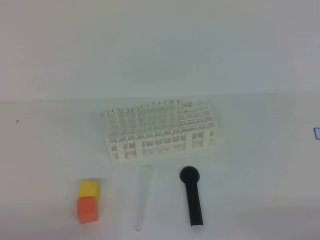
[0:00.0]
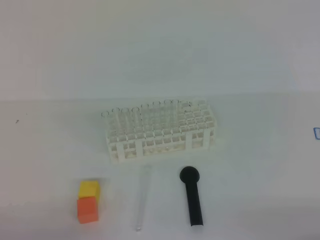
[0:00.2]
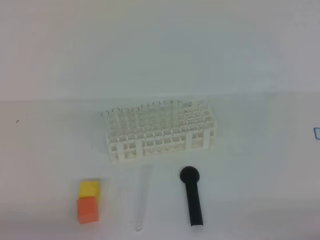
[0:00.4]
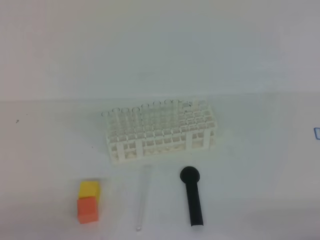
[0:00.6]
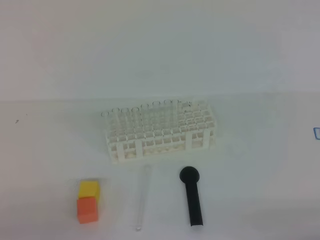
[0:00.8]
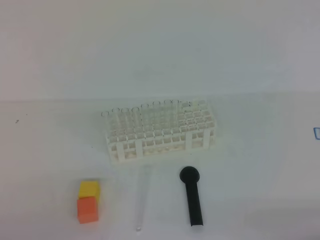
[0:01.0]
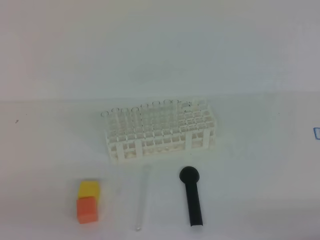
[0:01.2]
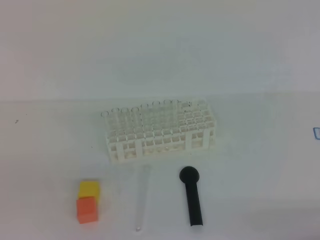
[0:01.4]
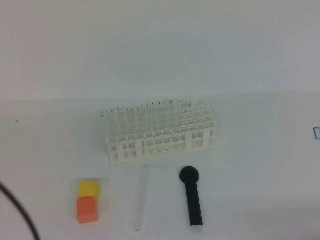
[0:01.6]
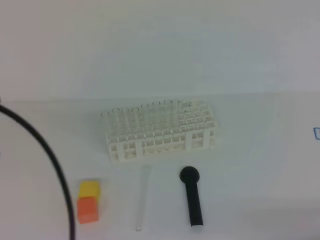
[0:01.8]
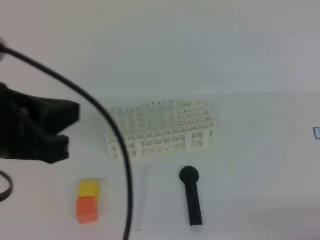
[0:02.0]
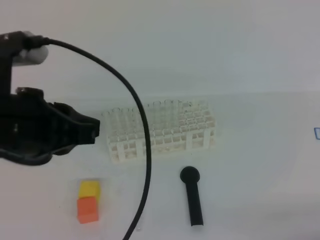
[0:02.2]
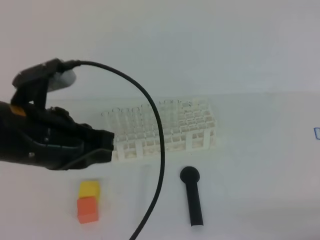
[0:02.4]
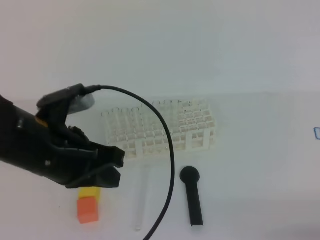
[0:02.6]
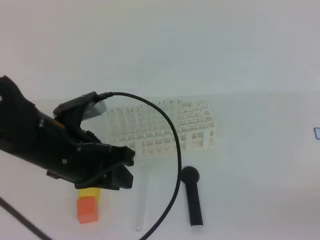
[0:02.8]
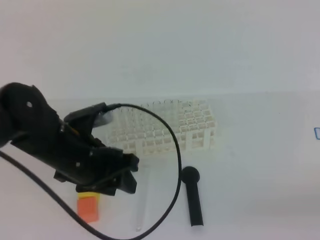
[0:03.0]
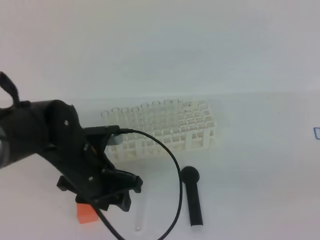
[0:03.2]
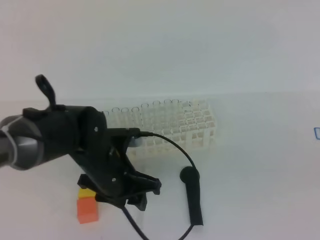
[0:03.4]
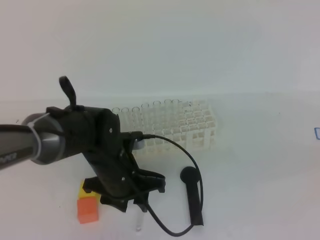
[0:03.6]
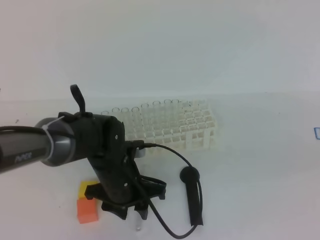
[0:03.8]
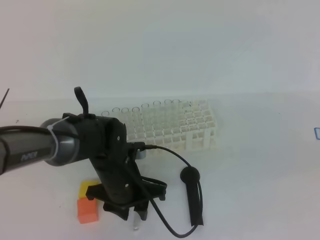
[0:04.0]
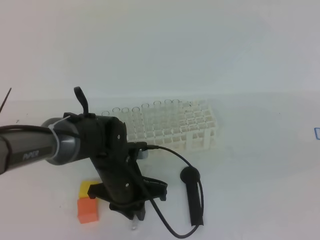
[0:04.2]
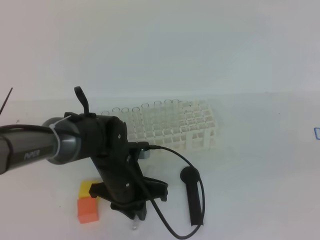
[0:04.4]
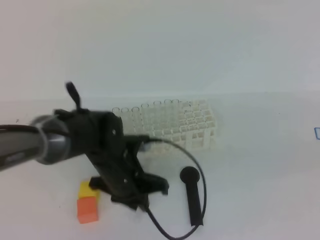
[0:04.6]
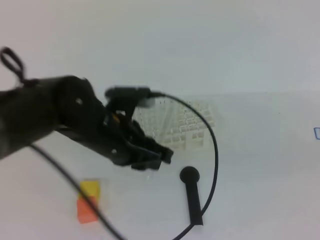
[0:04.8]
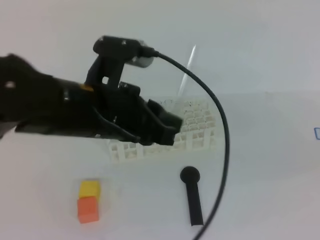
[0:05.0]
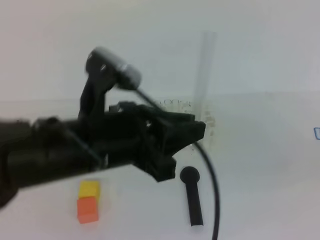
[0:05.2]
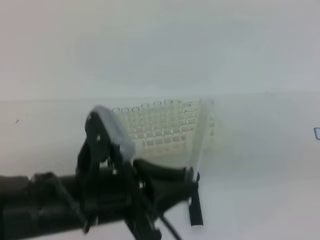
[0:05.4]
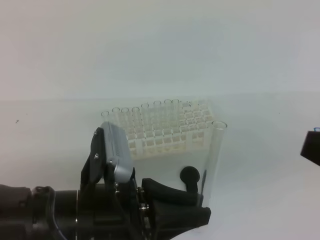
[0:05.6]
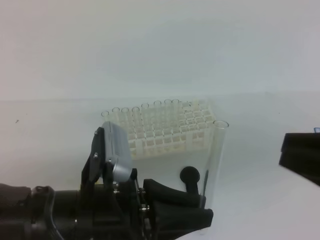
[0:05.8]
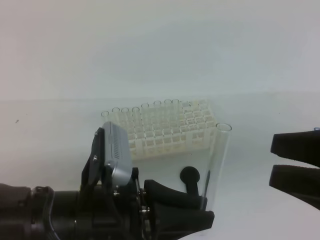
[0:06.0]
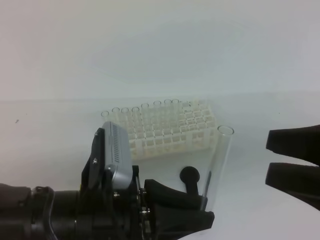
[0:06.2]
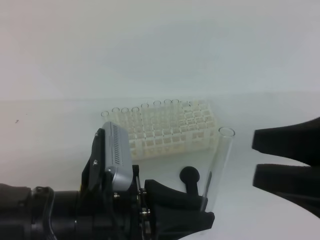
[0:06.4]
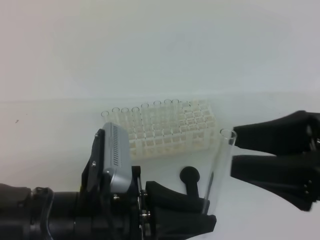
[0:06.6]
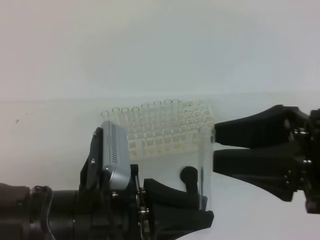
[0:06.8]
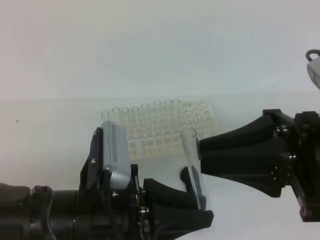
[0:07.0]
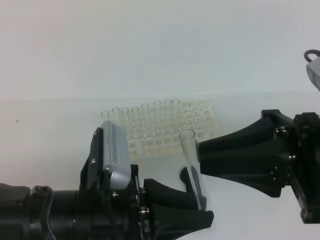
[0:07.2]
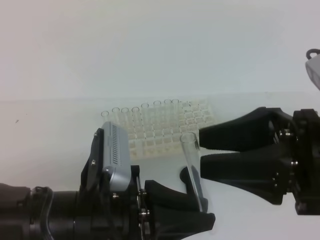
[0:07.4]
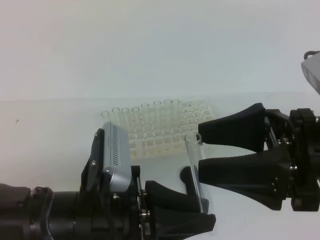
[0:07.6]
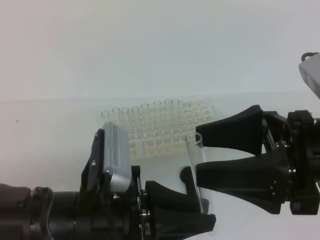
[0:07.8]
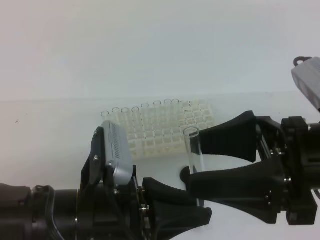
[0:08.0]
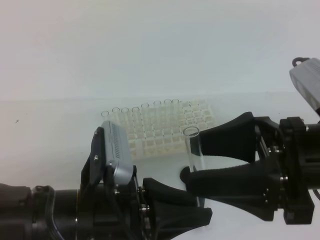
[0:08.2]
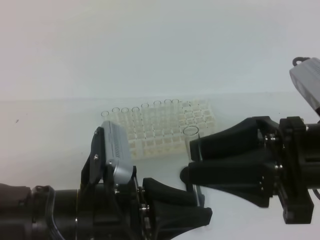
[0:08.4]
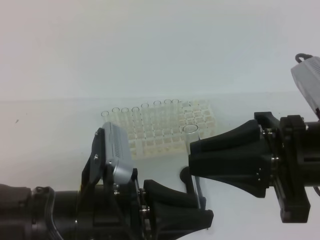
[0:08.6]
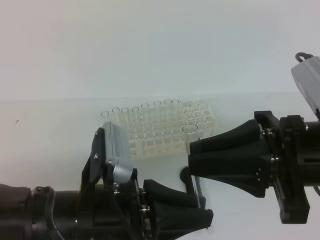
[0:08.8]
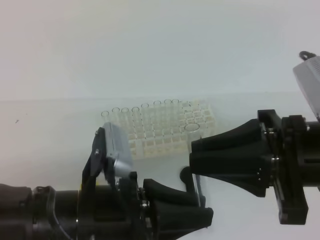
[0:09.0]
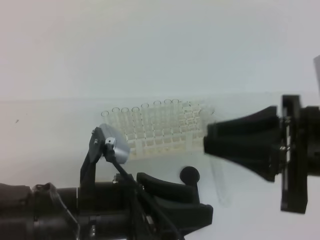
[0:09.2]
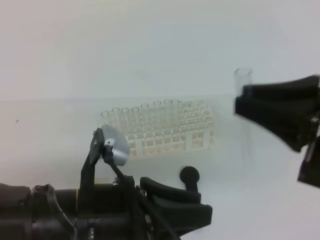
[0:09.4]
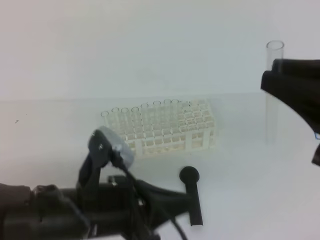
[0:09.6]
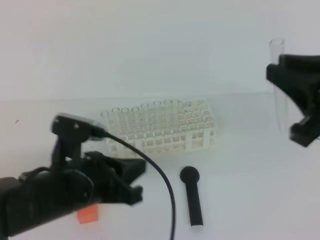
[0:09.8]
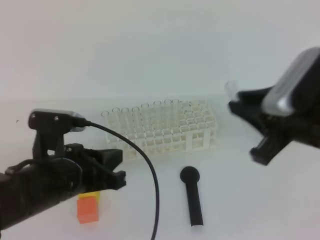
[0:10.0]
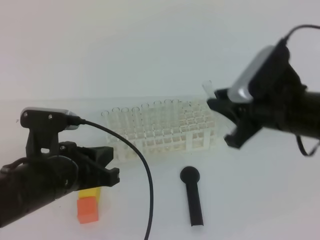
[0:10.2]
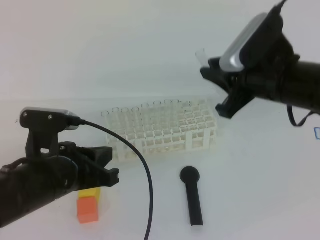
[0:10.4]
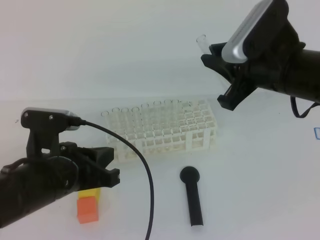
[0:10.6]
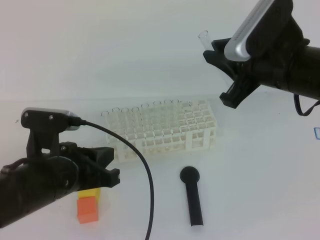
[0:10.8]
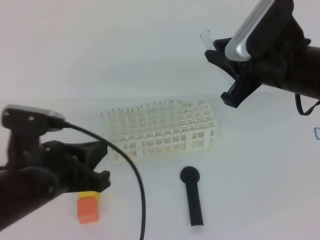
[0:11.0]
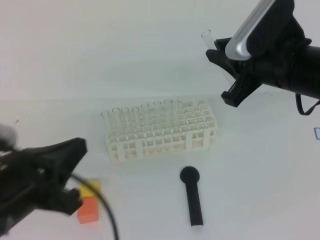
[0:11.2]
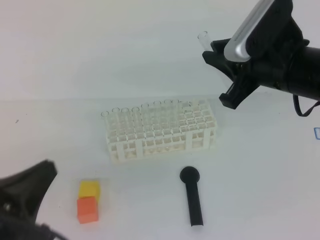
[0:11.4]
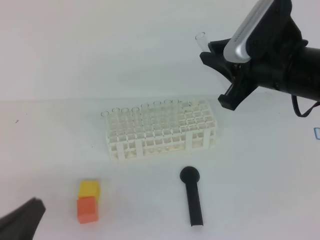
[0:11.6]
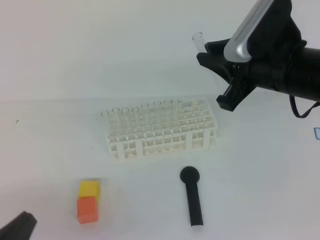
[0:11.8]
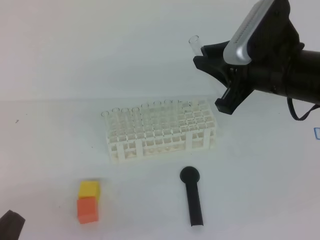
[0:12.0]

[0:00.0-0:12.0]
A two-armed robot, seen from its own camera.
0:00.0 to 0:01.6: The left gripper is displaced upward by some 20 cm.
0:01.6 to 0:03.0: The right gripper shifts roughly 5 cm upward. The left gripper is displaced forward, to the right and downward by roughly 25 cm, and opens its fingers.
0:03.0 to 0:04.4: The right gripper travels upward by some 15 cm; the left gripper heads downward and to the right, covering about 10 cm, and closes up.
0:04.4 to 0:06.0: The right gripper goes some 5 cm to the left, and opens up. The left gripper moves backward and upward, some 20 cm.
0:06.0 to 0:07.6: The right gripper travels to the left by approximately 5 cm, and opens its fingers.
0:07.6 to 0:09.0: The left gripper opens its fingers. The right gripper closes its fingers.
0:09.0 to 0:10.4: The right gripper moves forward, about 10 cm. The left gripper goes roughly 10 cm forward and to the left, and closes up.
0:10.4 to 0:12.0: The left gripper is displaced backward and to the left by about 15 cm.

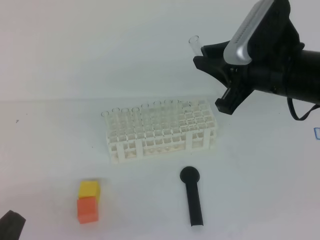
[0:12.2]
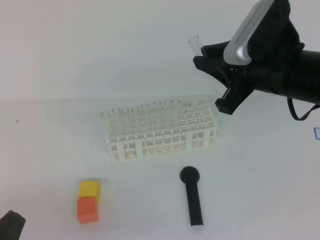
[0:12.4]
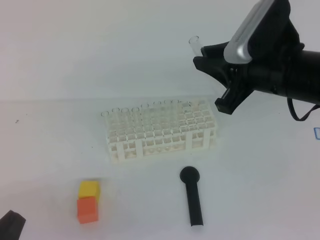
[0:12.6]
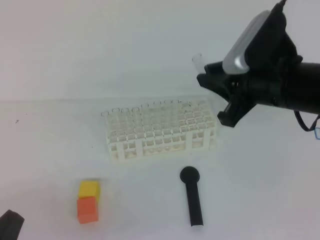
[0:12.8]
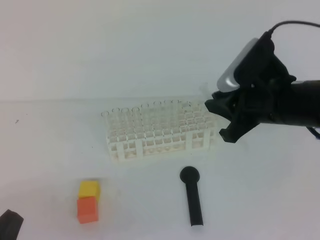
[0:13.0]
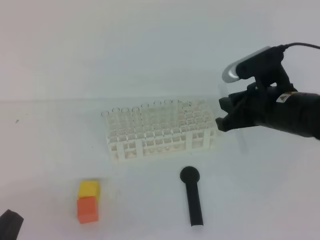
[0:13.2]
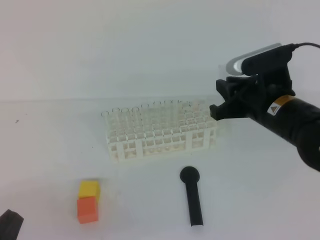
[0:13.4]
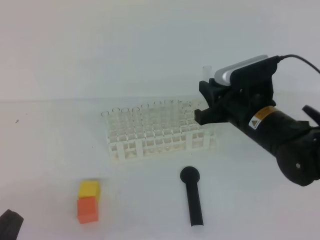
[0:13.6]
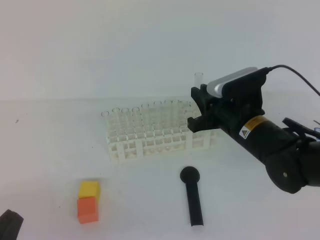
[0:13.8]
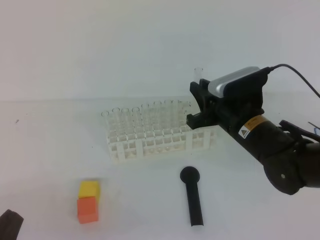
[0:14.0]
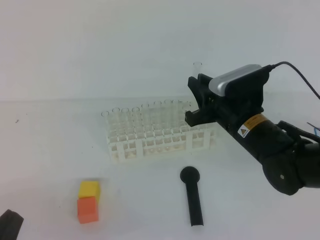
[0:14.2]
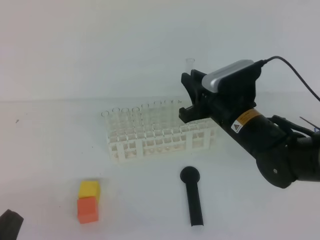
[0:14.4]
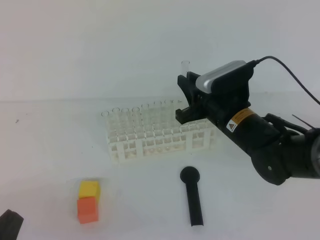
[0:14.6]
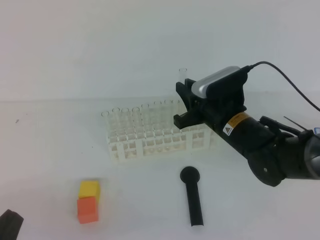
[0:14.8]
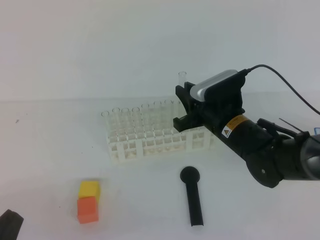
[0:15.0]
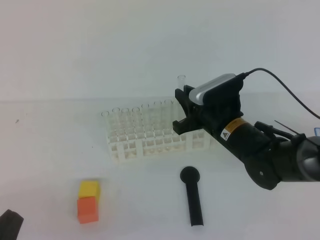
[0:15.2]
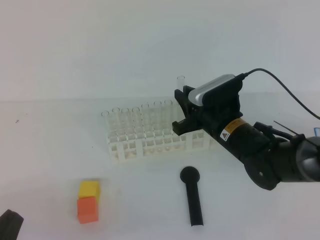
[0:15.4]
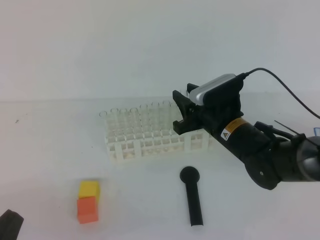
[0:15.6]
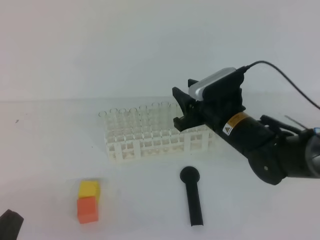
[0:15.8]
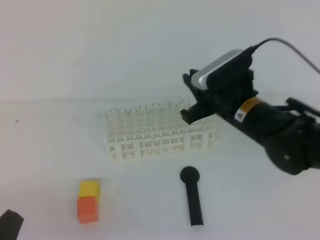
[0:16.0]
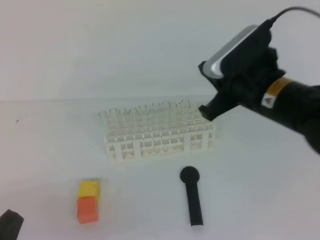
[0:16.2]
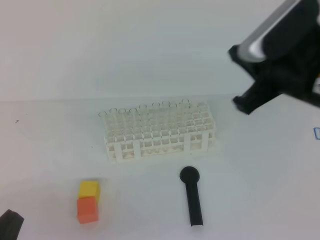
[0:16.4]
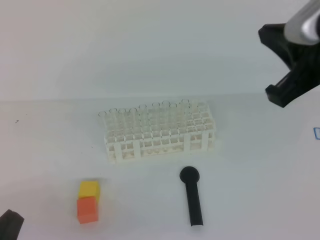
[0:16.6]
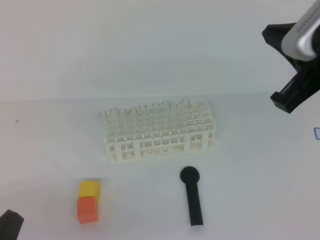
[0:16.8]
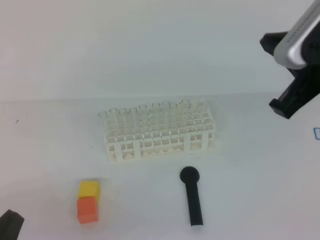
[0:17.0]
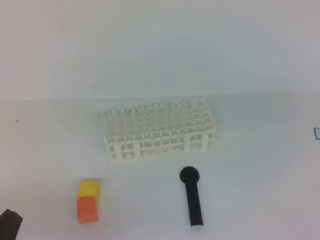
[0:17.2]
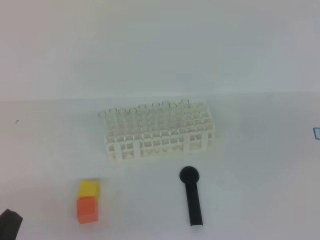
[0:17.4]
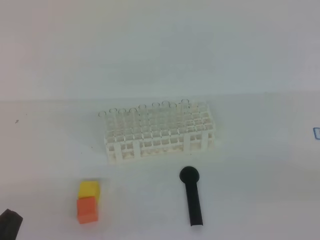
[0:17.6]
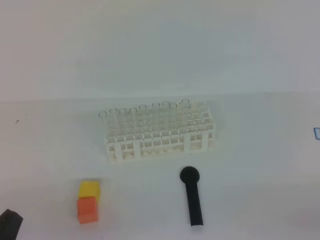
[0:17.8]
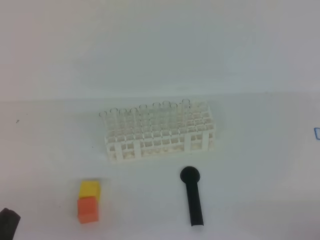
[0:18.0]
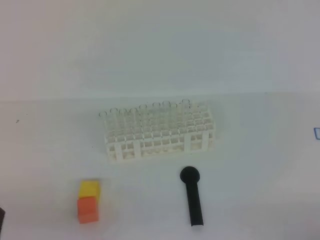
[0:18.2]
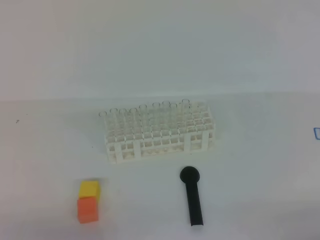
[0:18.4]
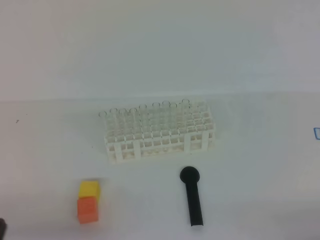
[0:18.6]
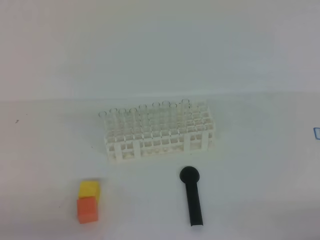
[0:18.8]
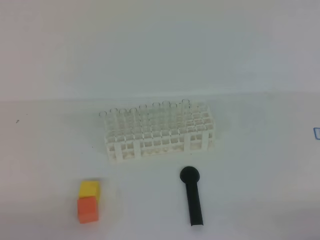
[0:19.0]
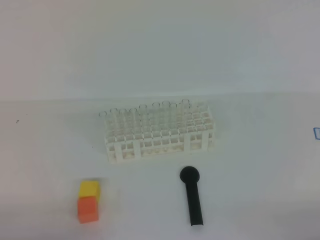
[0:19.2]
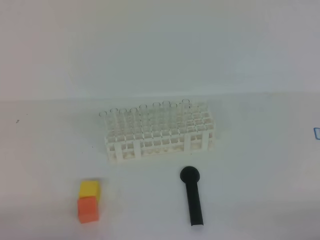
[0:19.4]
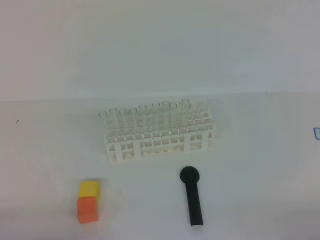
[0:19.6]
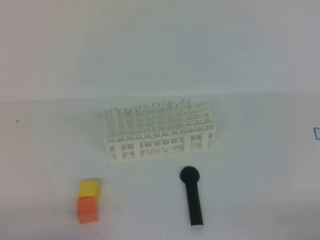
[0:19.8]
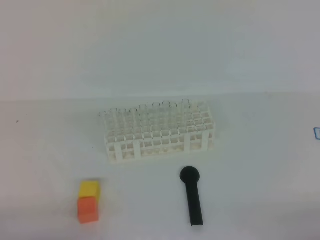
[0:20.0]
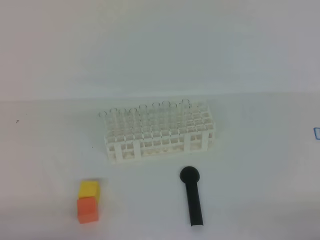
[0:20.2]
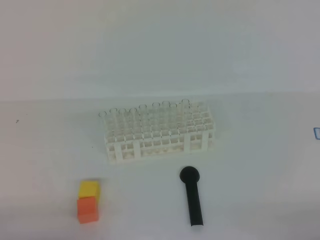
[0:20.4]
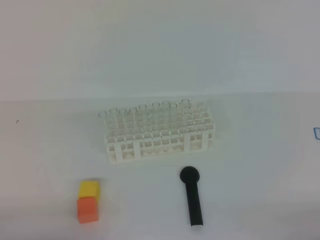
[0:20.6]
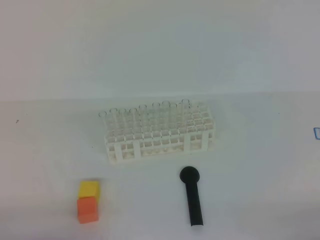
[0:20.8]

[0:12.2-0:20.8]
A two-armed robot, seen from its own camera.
0:12.2 to 0:13.6: The right gripper shifts approximately 10 cm downward.
0:13.6 to 0:15.0: The right gripper ends up some 5 cm from where it was.
0:15.0 to 0:16.6: The right gripper goes approximately 20 cm upward and backward.
0:16.6 to 0:18.0: The right gripper heads downward, backward and to the right, covering roughly 30 cm.
0:19.4 to 0:20.8: Neither gripper changes place.
